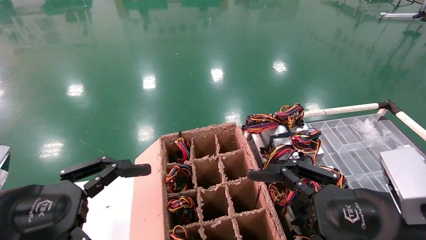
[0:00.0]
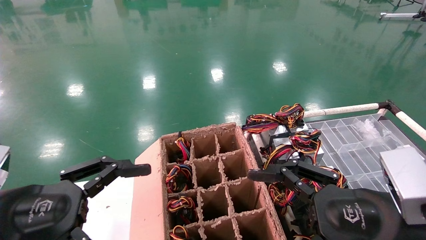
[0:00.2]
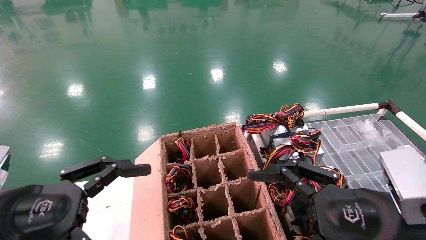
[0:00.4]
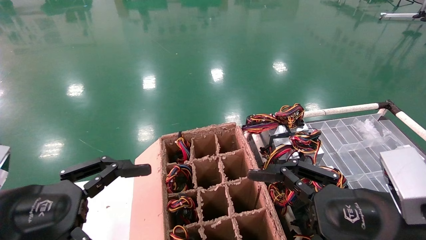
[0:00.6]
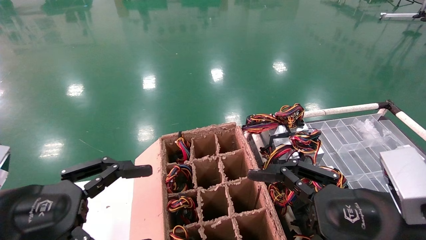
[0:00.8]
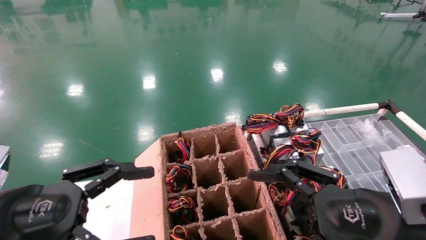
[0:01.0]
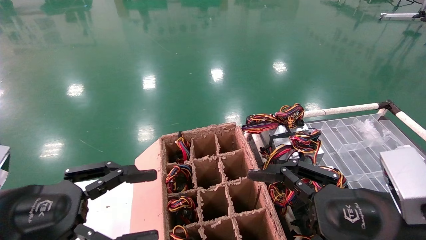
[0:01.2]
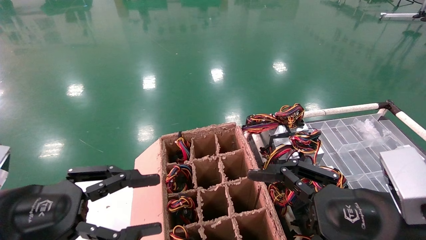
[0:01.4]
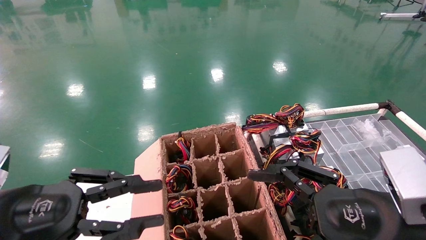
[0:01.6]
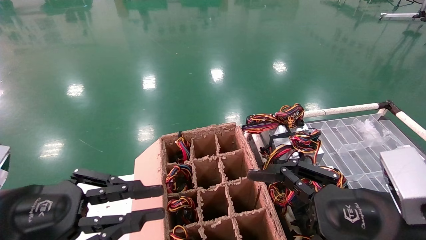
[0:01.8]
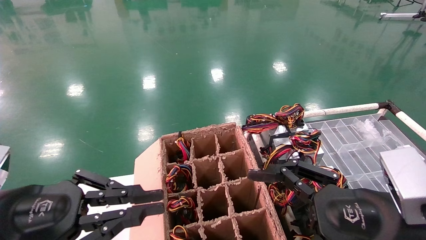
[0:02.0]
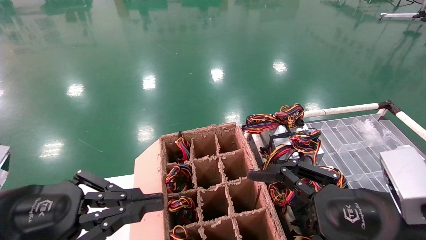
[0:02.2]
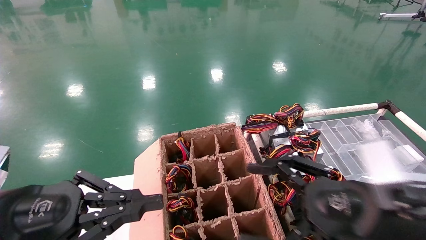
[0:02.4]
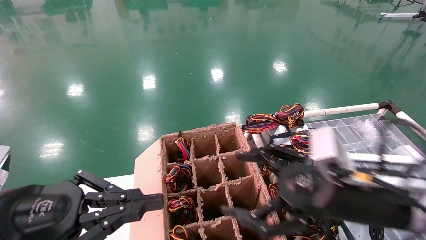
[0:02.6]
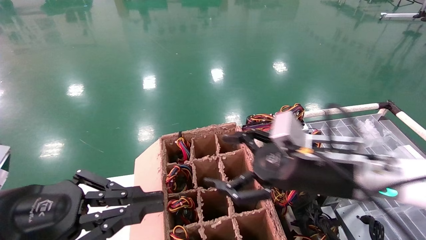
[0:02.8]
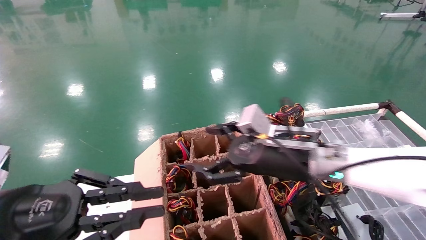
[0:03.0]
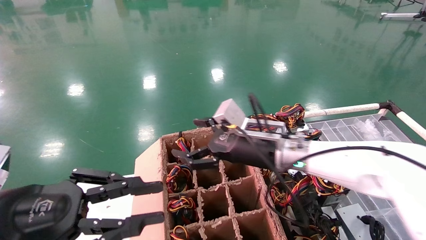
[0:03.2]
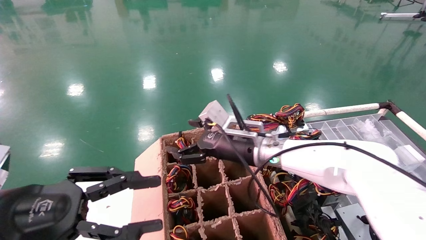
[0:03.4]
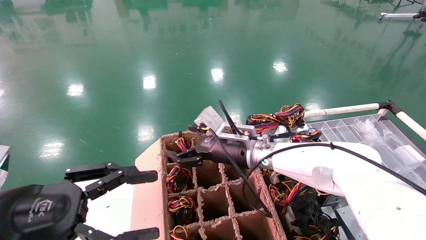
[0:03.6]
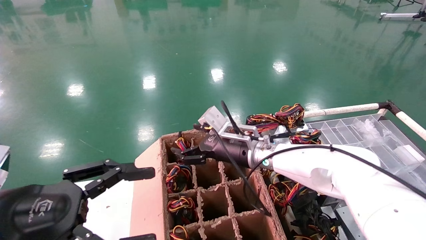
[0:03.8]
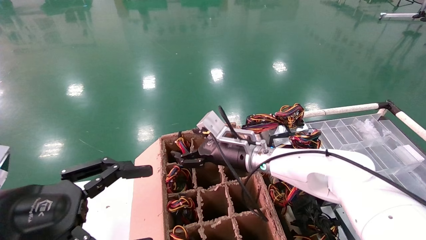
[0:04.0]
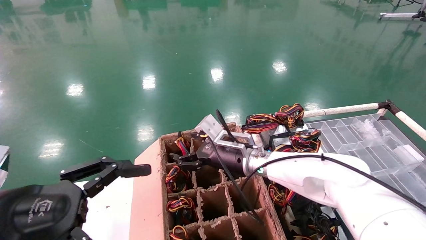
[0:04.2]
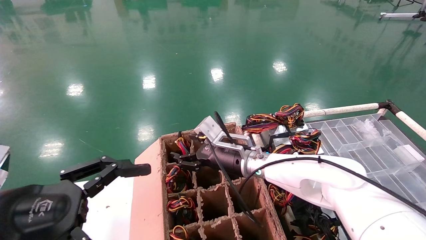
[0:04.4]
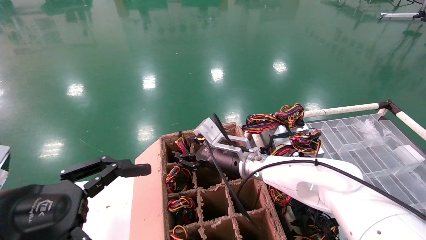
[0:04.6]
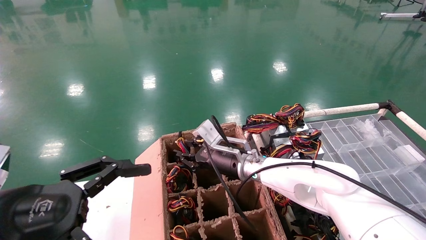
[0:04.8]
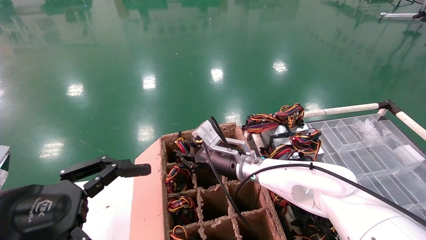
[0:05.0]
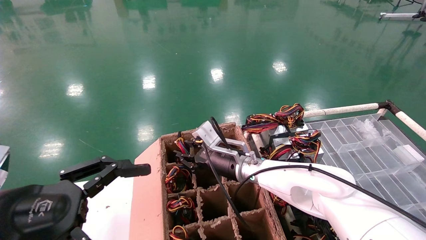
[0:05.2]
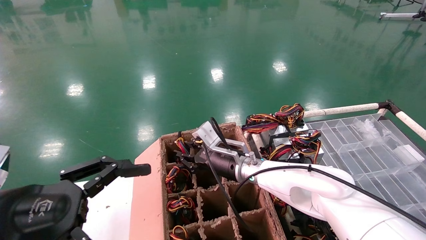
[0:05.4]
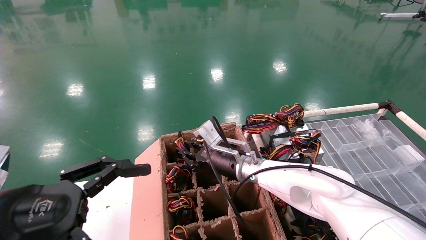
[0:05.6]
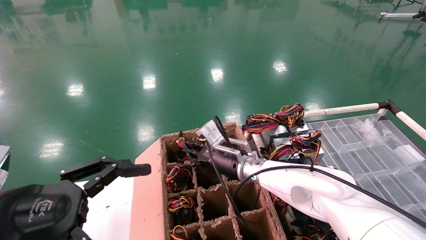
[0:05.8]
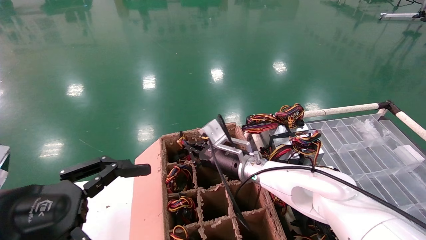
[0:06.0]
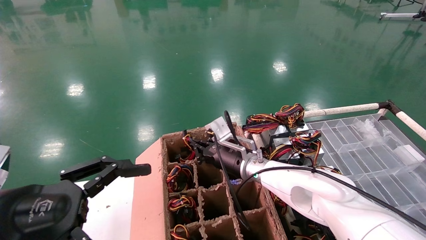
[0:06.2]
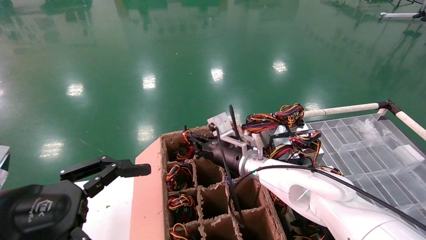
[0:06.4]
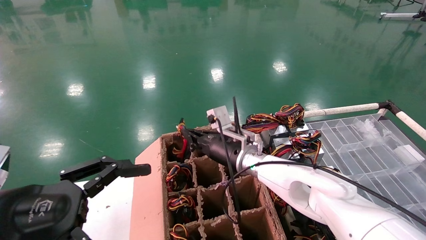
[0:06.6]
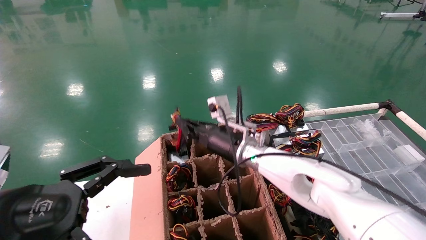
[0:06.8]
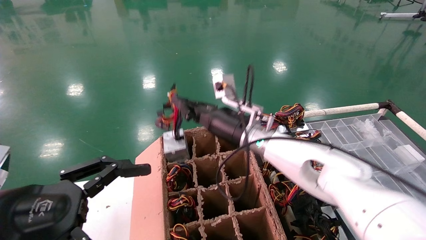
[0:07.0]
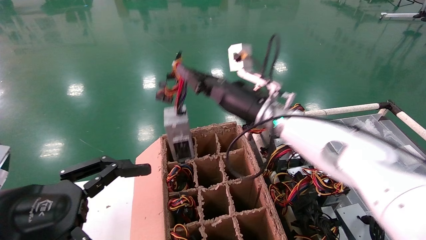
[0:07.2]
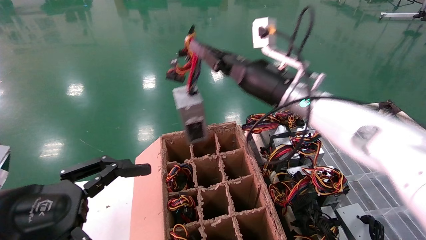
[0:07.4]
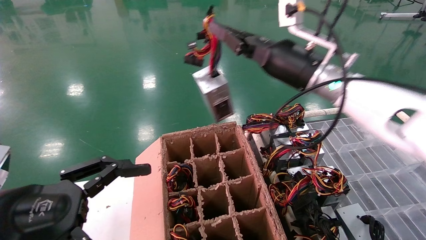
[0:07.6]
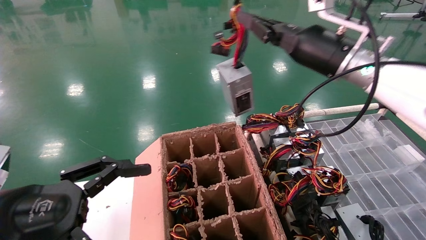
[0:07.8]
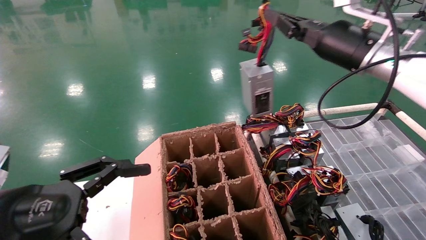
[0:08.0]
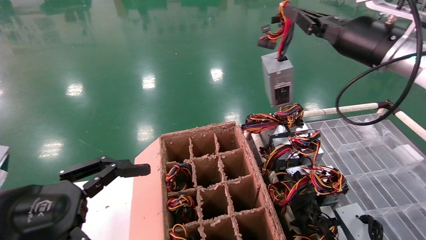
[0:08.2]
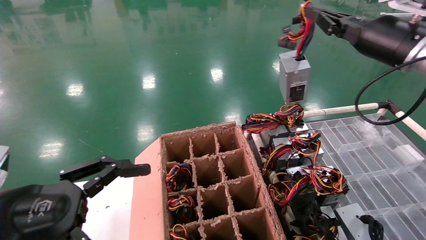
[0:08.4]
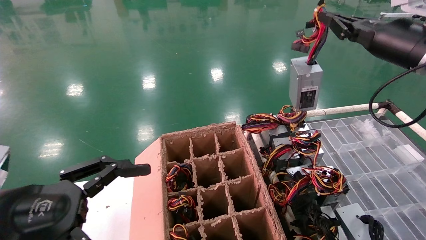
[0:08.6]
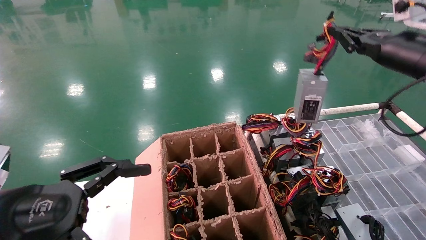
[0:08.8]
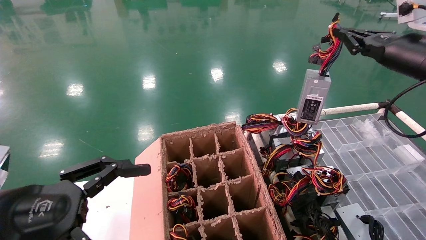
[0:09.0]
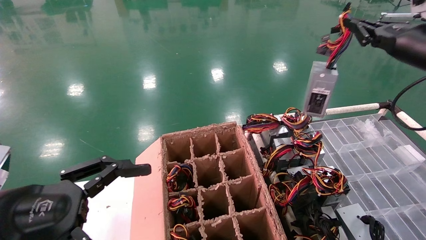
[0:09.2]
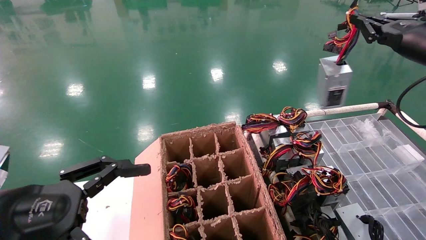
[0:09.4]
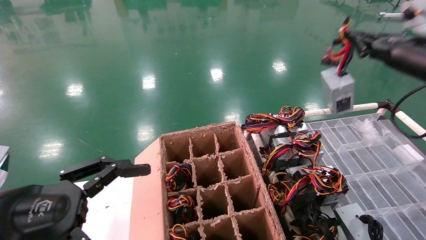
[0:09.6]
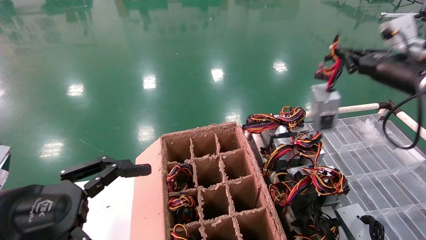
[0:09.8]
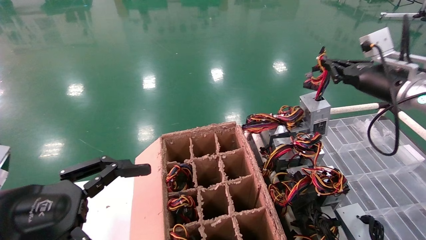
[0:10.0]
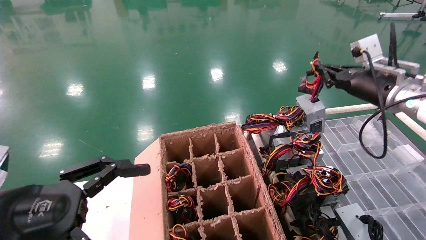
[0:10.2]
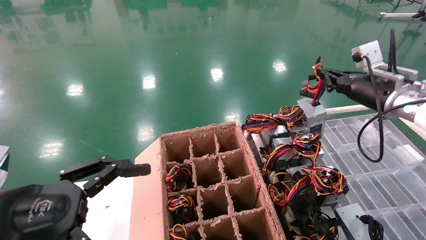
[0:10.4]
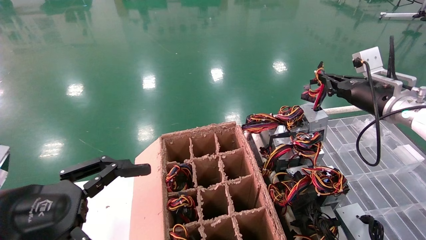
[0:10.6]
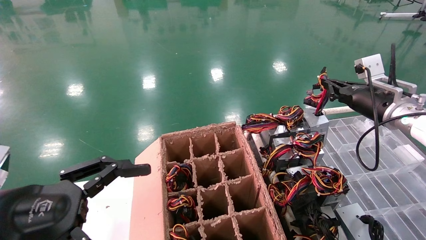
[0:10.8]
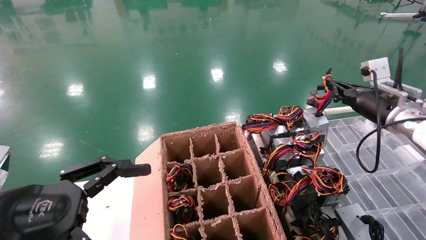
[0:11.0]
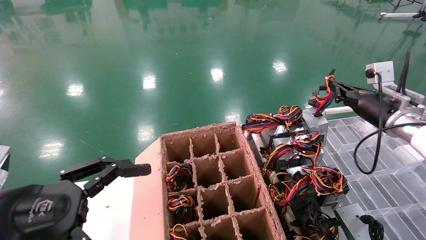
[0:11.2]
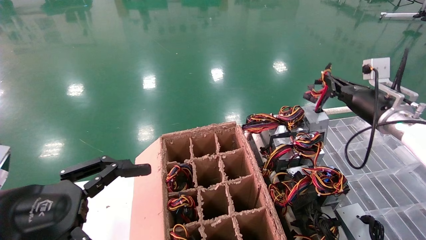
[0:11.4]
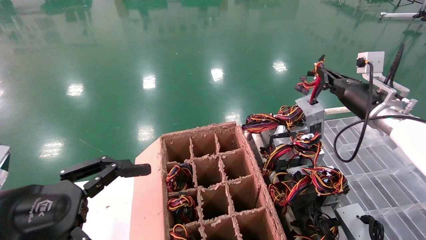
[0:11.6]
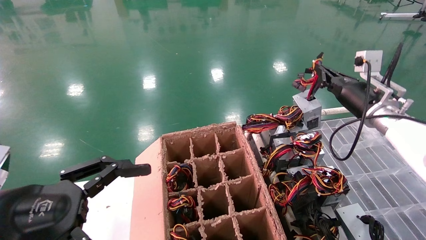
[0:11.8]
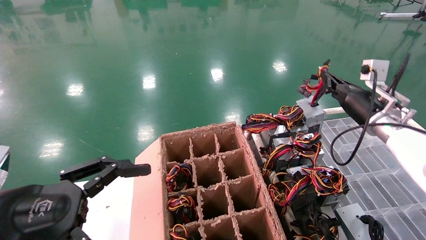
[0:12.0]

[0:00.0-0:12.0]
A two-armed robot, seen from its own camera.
Step, 0:02.2 to 0:06.0: Grab and lift the power supply from the large box.
0:00.0 to 0:01.6: The left gripper closes.
0:01.6 to 0:03.0: The left gripper closes up. Meanwhile the right gripper is displaced forward and to the left by about 20 cm.
0:03.0 to 0:04.4: The left gripper opens. The right gripper heads forward, to the left and downward, covering about 15 cm.
0:04.4 to 0:06.0: The right gripper closes up.
0:06.0 to 0:07.6: The right gripper goes some 25 cm upward and to the right.
0:07.6 to 0:09.0: The right gripper travels to the right by roughly 20 cm.
0:09.0 to 0:10.4: The right gripper goes roughly 10 cm downward and forward.
0:10.4 to 0:12.0: The right gripper moves downward, approximately 5 cm.

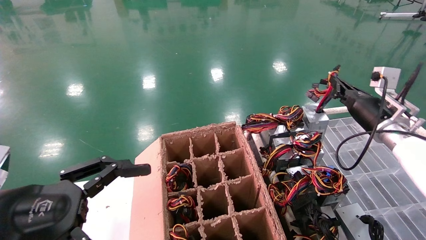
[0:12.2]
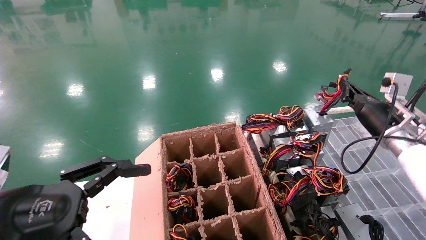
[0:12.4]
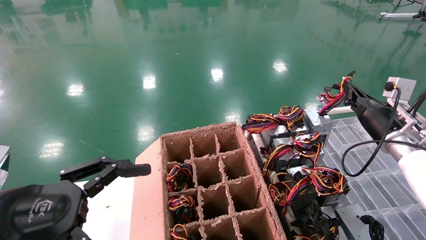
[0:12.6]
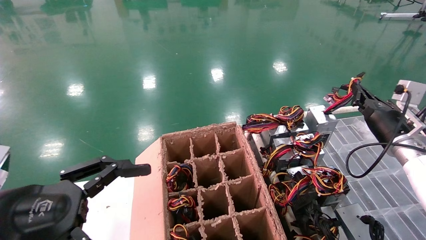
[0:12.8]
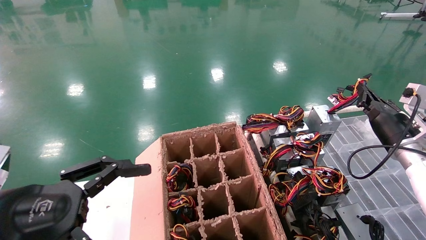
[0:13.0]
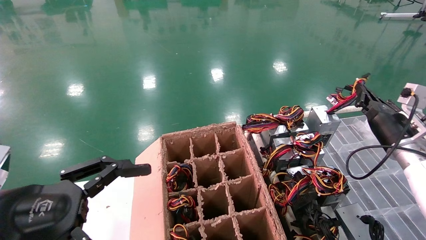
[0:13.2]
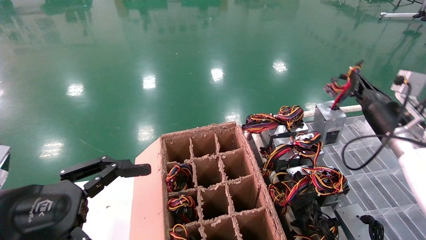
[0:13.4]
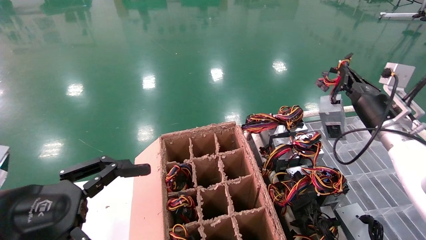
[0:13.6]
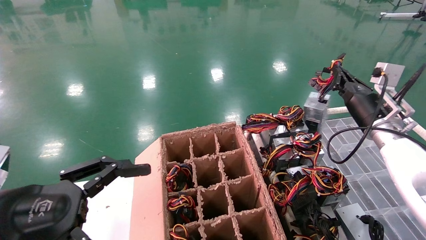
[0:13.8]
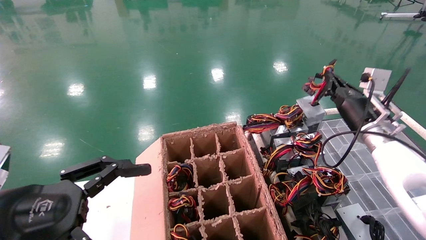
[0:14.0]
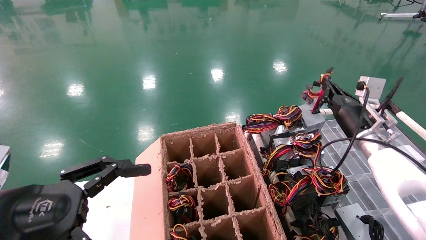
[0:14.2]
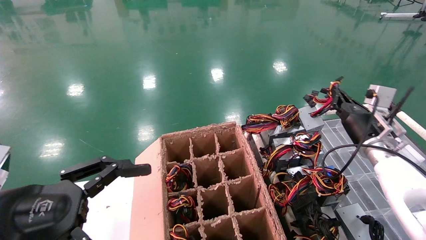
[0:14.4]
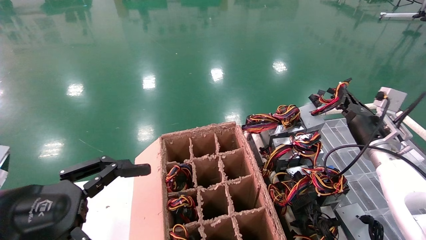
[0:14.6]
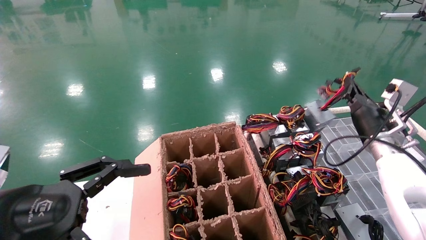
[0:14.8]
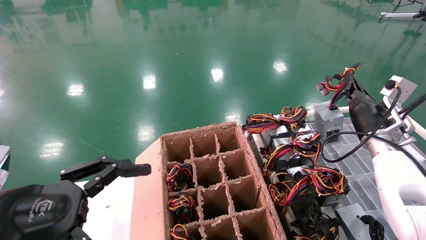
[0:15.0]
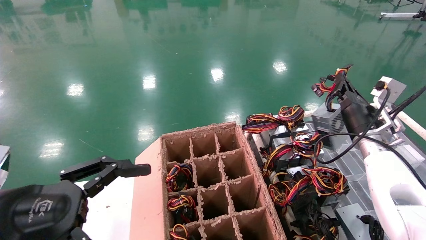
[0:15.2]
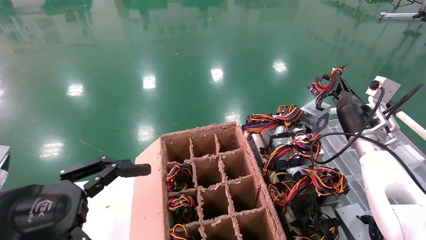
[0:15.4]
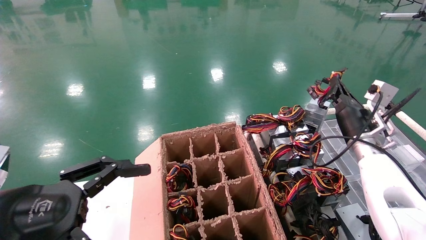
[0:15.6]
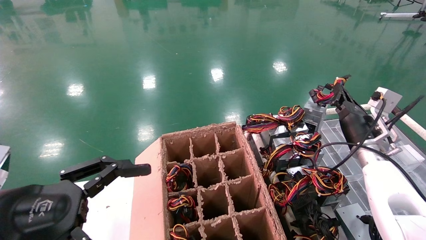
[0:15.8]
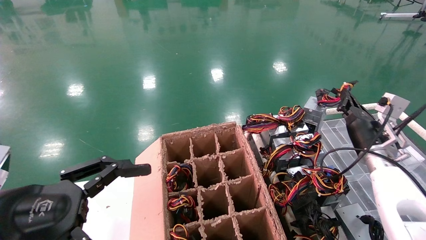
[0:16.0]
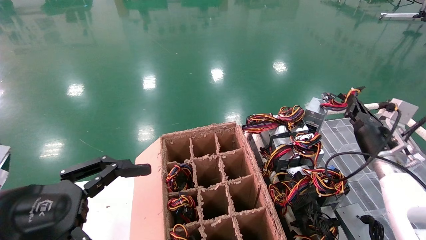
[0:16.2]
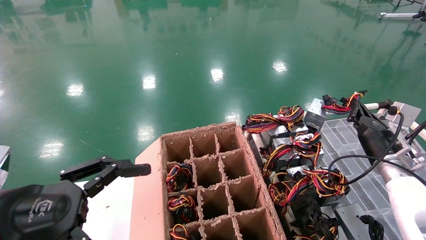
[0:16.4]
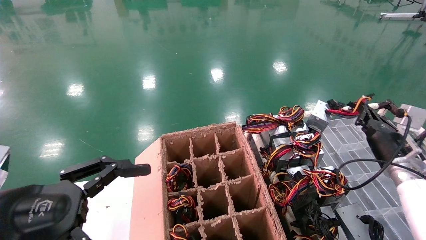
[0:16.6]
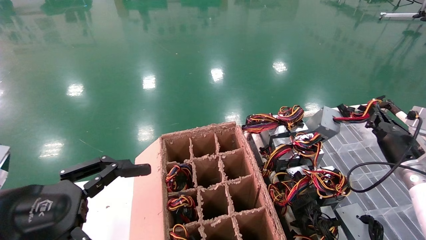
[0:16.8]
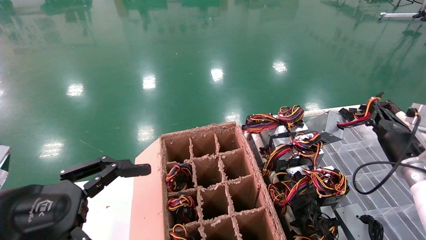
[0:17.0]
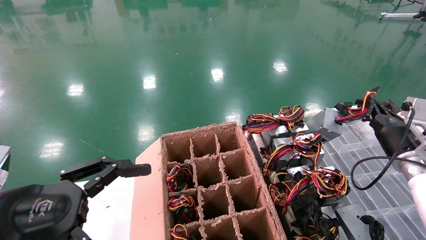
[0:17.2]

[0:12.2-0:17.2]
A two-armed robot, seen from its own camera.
0:12.2 to 0:15.6: The grippers stay close to where they were, moving slightly.
0:15.6 to 0:17.2: The right gripper goes some 10 cm to the right.
